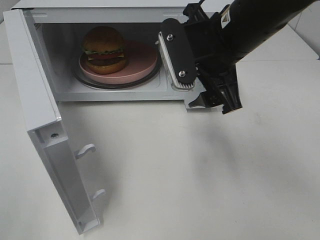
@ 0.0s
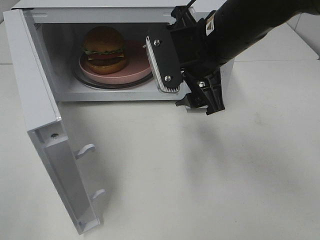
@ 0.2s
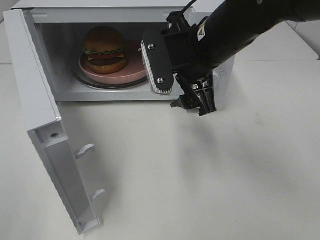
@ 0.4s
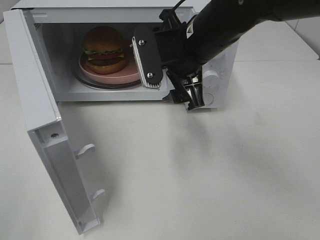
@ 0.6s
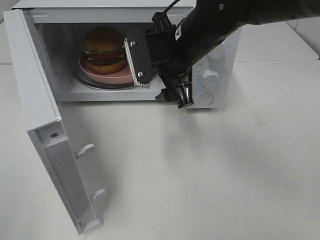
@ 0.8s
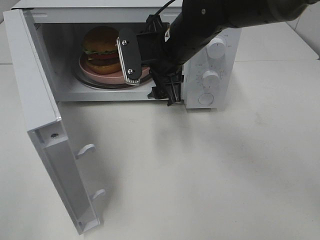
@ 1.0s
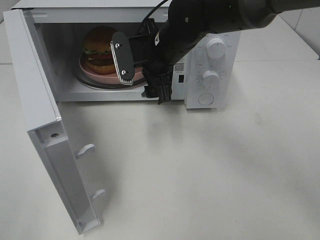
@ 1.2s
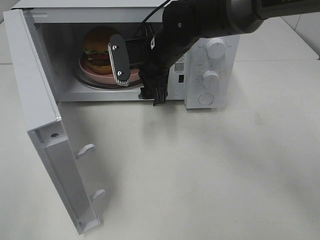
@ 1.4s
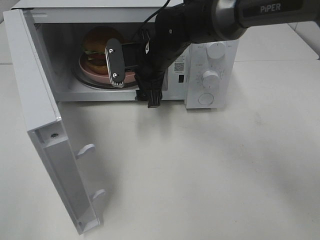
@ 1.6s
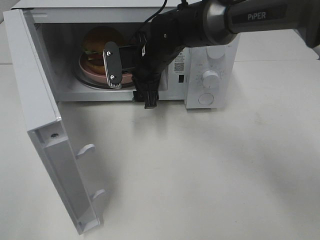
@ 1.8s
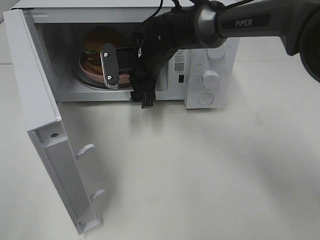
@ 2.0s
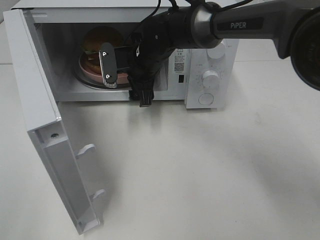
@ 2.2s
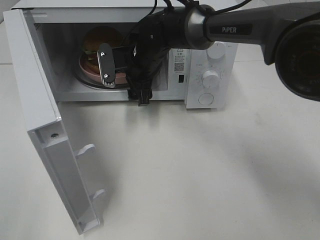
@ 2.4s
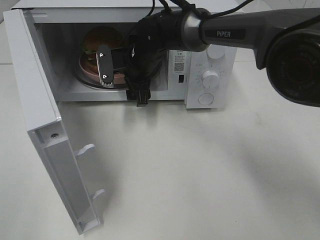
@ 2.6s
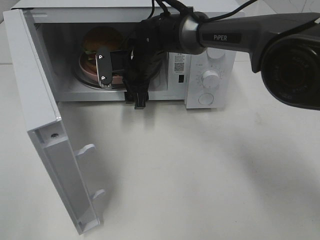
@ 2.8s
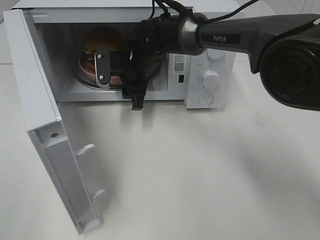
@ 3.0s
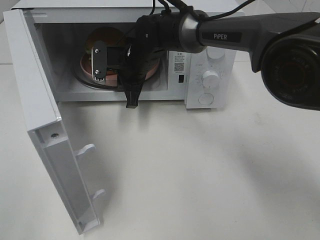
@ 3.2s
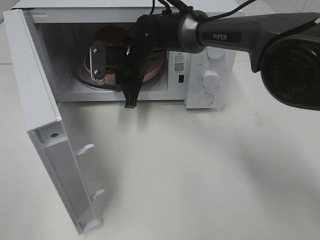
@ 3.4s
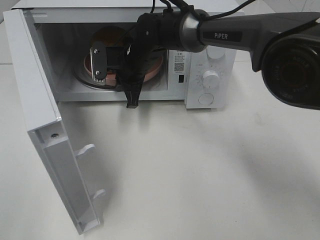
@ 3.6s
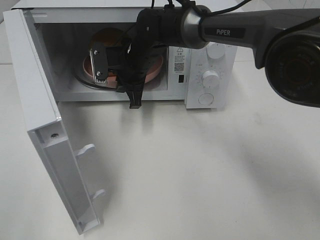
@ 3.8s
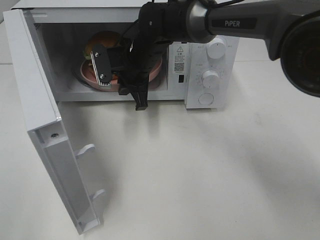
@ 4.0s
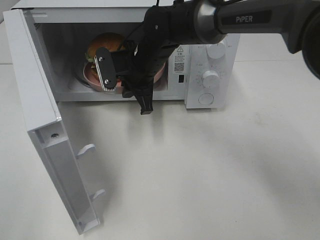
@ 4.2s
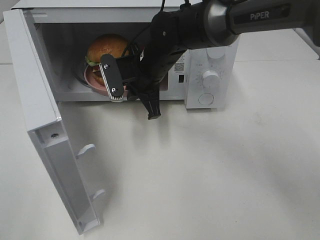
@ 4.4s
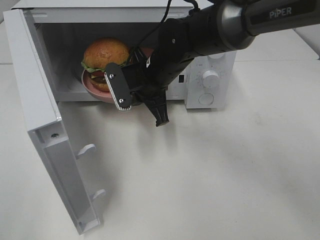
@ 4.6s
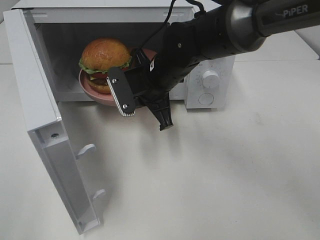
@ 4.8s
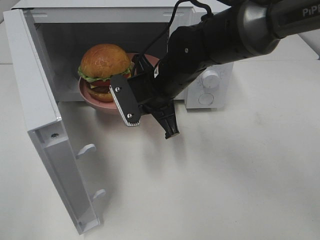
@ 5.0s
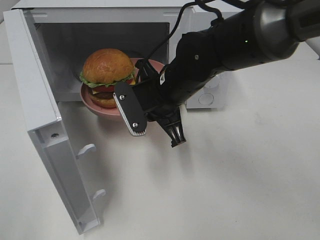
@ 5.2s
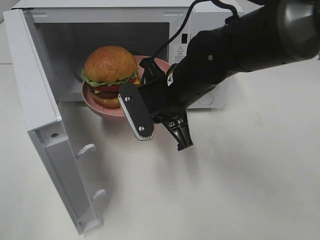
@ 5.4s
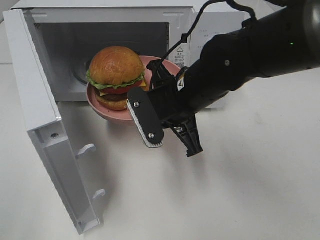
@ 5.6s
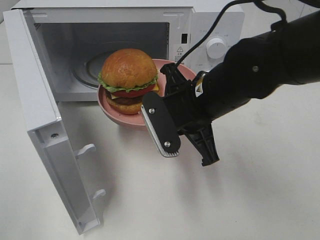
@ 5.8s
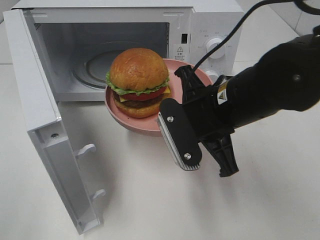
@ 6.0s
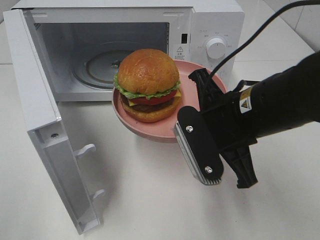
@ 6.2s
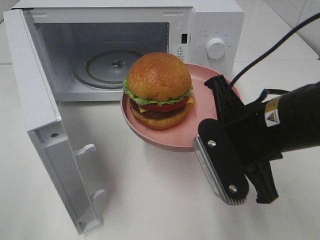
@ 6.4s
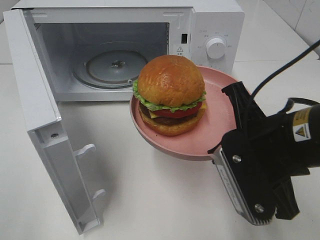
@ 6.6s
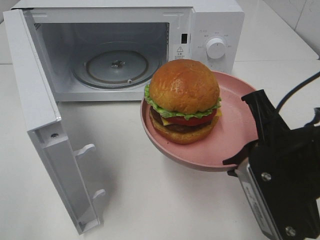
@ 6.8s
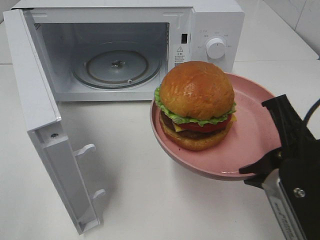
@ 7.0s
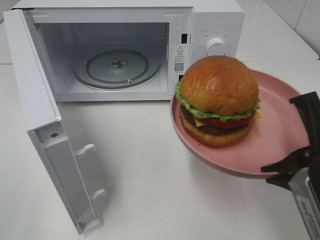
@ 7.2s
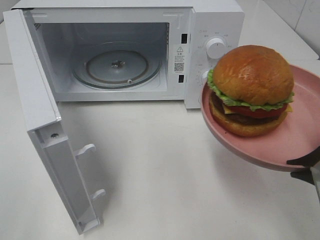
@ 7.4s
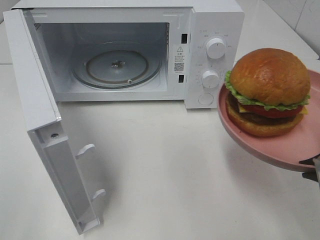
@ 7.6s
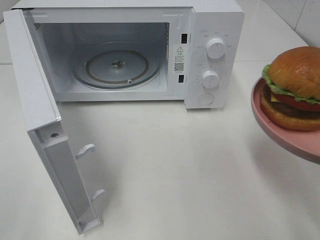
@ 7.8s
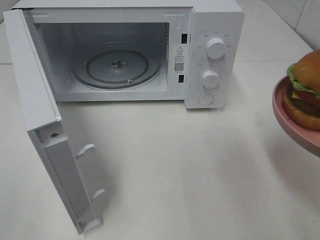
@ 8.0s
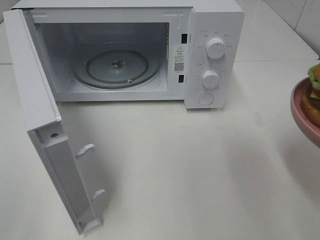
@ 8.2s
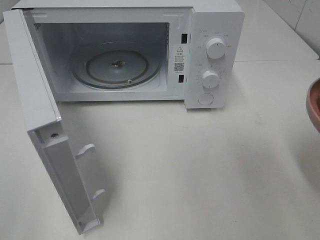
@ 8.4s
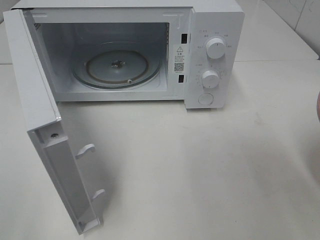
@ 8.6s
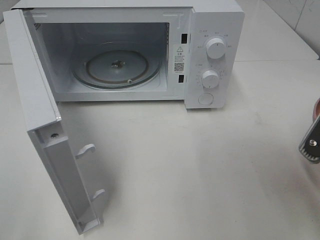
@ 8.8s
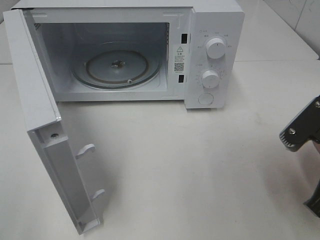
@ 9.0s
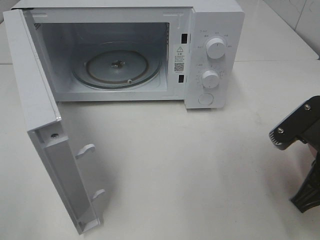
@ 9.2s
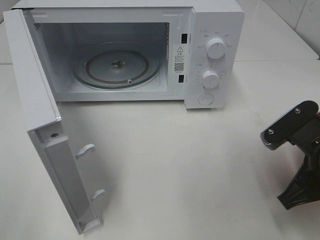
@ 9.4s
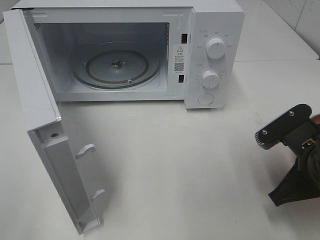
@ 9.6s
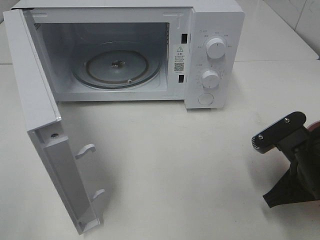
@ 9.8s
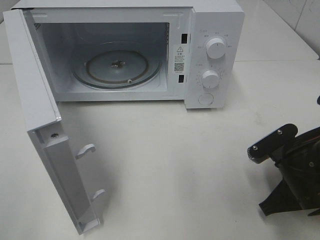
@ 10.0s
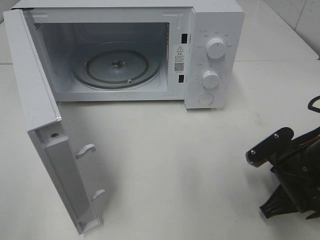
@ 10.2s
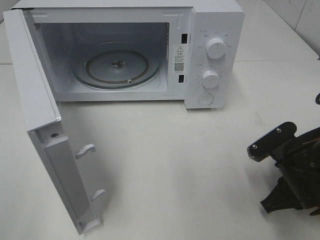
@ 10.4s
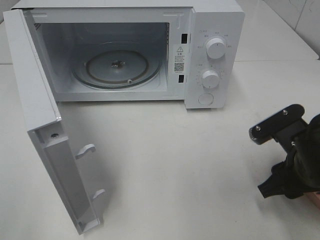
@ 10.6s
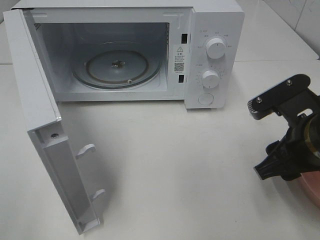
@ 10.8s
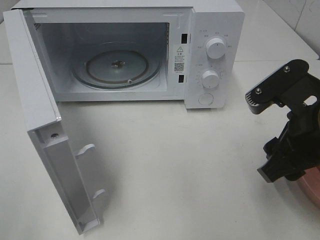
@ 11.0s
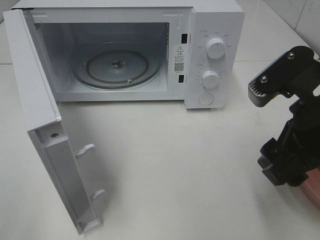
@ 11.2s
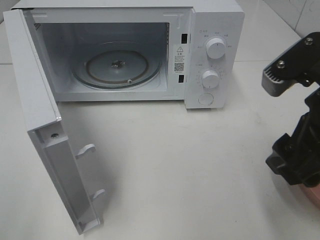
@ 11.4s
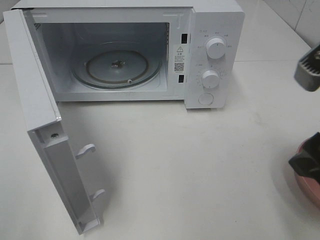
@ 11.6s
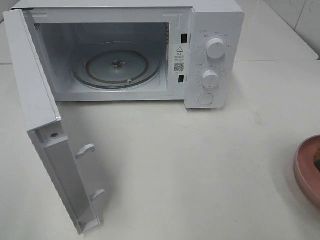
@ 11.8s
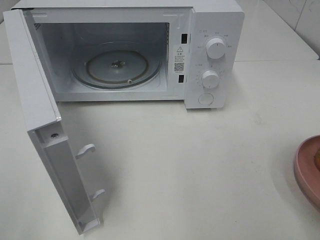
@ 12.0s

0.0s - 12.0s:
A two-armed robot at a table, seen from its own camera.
Task of the whole recording: Heat the burger.
Step, 0.0s - 3.2s: Right hand: grab the plate with the hamburger.
Step, 3.4s - 10.2s: Right hand: place the plate on the table.
0.0s - 1.6s: The right gripper heads forward, downward and to the left, covering some 15 cm.
1.6s - 3.0s: The right gripper changes place by approximately 5 cm, and closes up.
3.0s - 4.4s: The right gripper moves backward, roughly 5 cm, and closes its fingers.
4.4s - 6.0s: The right gripper moves backward and to the right, approximately 20 cm.
6.0s - 7.6s: The right gripper is displaced to the right and backward by roughly 20 cm.
7.6s - 9.0s: The right gripper changes place by about 5 cm.
9.0s - 10.4s: The right gripper heads downward, covering roughly 10 cm, and opens its fingers.
10.4s - 12.0s: The right gripper moves upward, approximately 20 cm, and opens up.

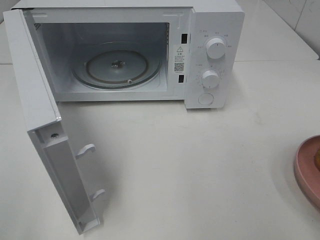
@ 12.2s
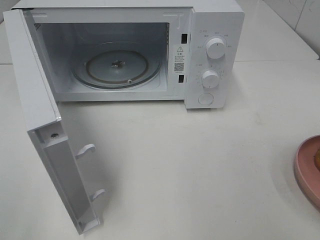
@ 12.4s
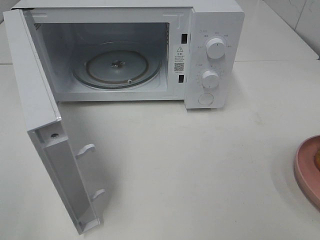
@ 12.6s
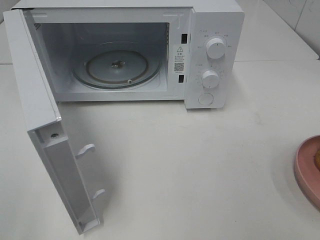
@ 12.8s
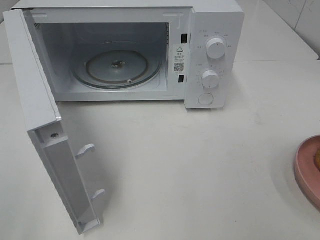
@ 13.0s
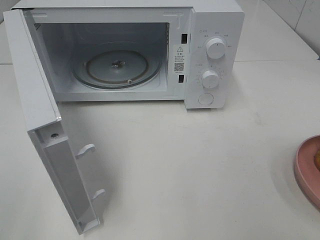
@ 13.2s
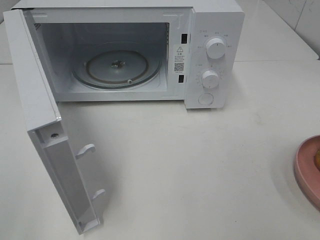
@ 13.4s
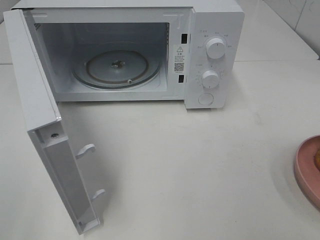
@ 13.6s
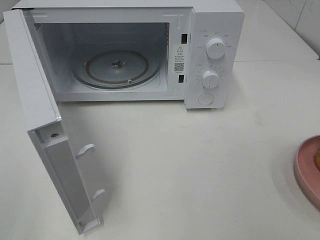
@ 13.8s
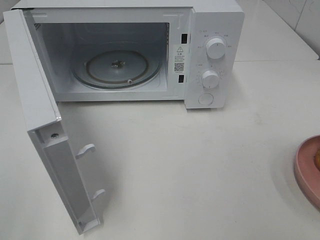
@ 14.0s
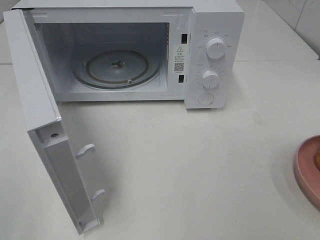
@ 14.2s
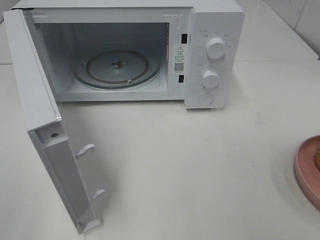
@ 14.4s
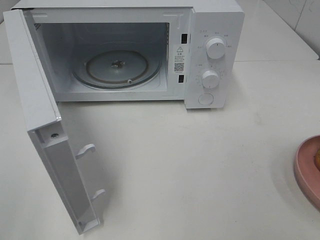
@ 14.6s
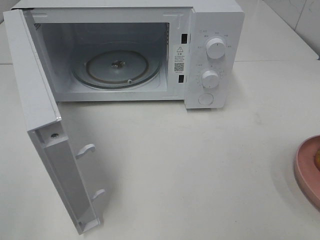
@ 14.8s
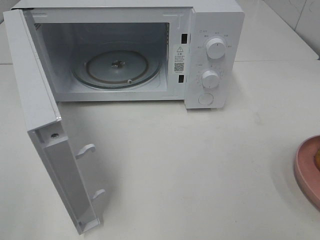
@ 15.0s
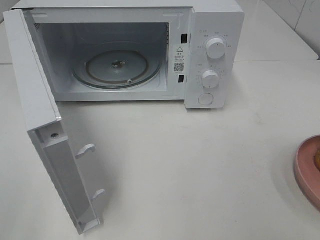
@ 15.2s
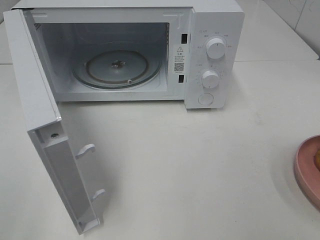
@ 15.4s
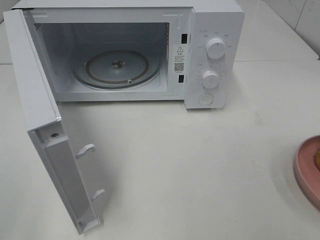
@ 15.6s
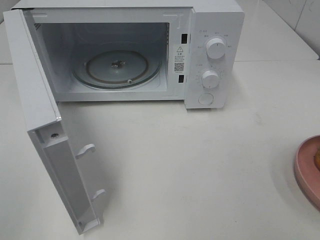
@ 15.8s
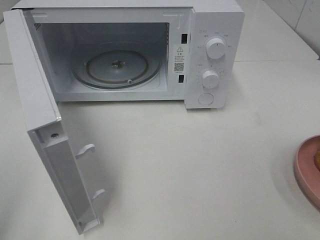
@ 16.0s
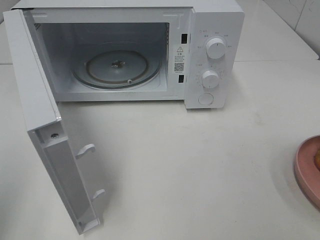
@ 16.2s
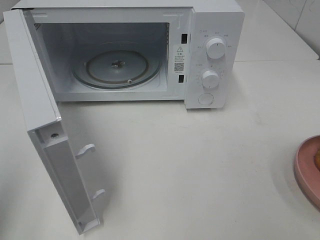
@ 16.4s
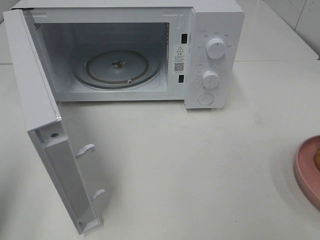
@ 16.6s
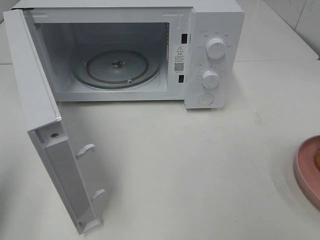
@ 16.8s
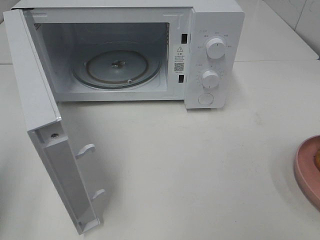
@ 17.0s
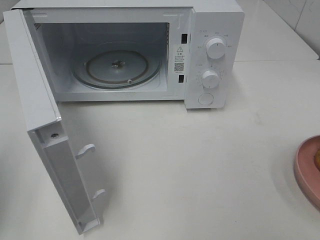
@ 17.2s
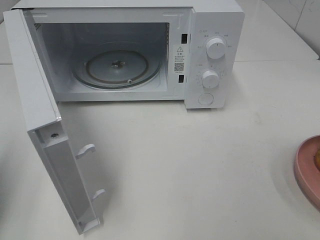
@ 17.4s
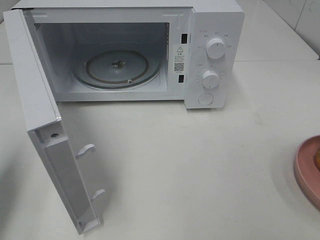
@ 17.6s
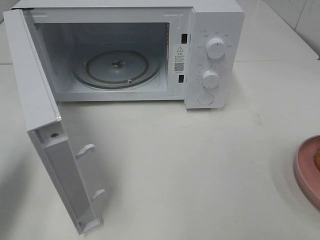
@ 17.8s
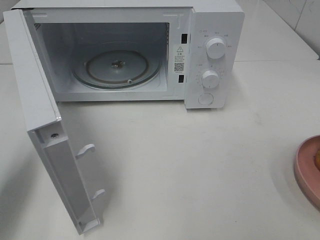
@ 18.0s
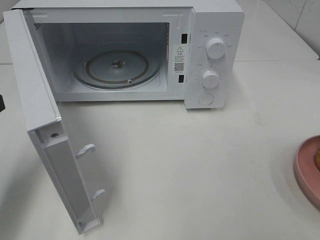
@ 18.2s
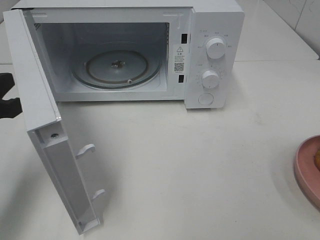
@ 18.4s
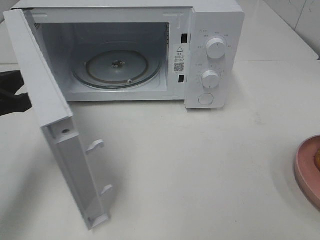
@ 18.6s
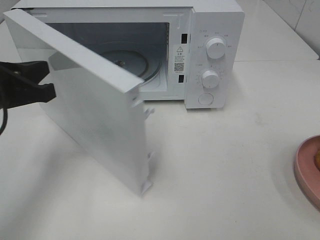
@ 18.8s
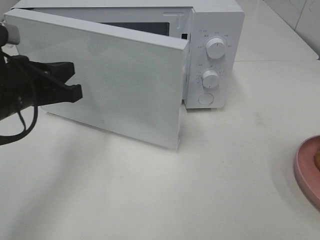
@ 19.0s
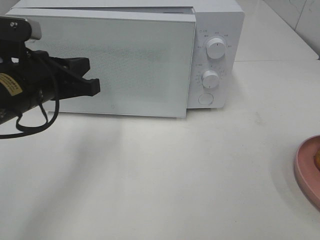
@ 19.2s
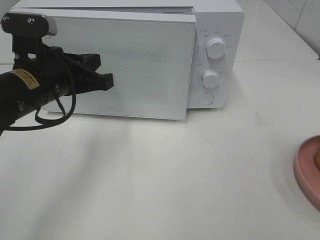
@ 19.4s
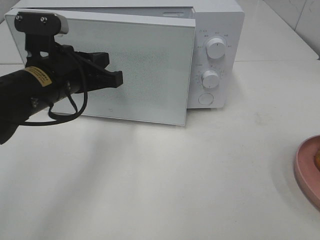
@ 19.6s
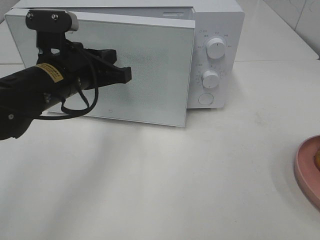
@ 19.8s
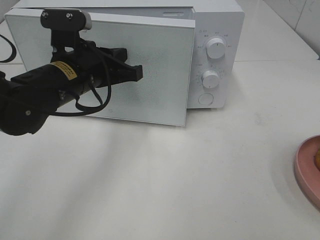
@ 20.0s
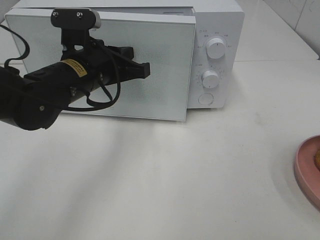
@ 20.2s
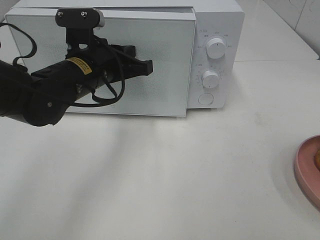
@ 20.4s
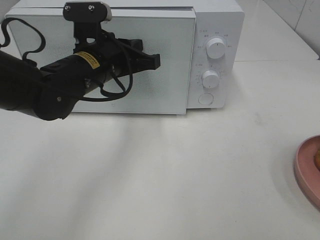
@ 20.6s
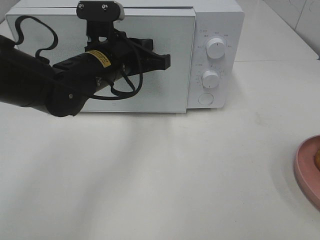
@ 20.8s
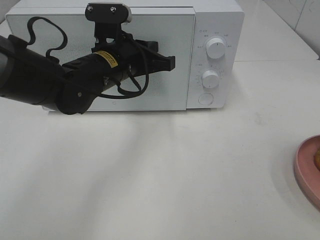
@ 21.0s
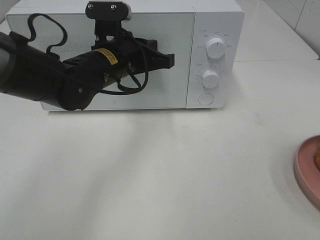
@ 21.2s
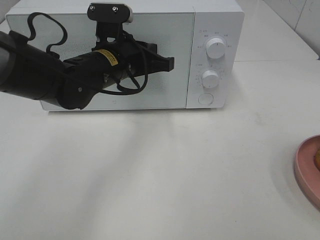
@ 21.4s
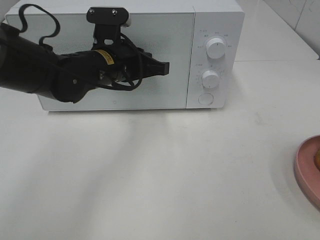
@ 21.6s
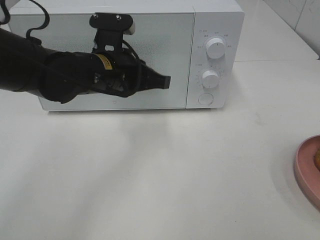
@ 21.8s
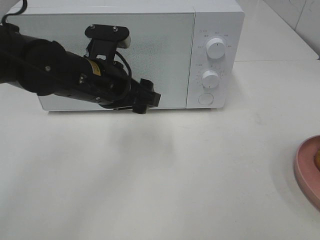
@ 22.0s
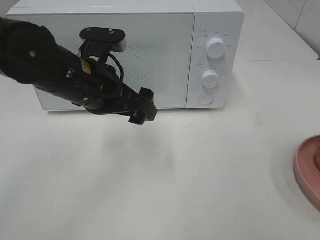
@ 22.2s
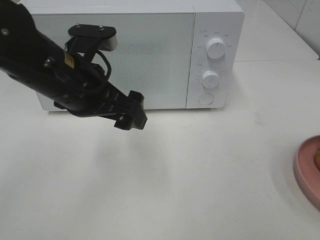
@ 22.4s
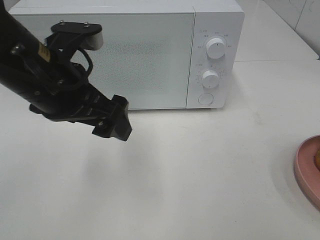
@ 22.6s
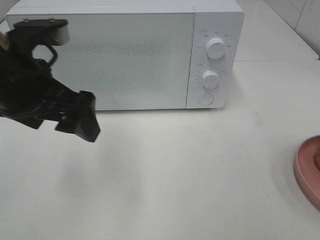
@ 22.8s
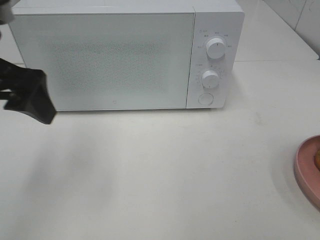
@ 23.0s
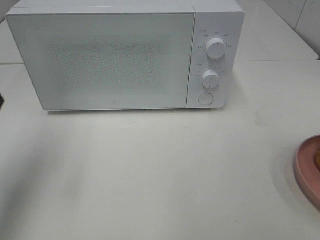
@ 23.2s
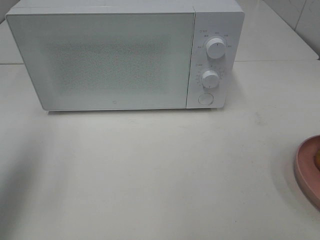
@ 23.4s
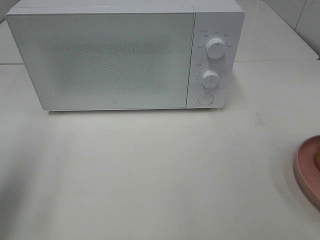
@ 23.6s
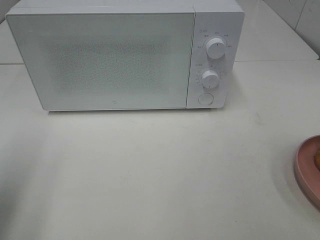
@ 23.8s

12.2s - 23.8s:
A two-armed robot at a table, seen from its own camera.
Task of the whole recording: Heat the burger.
Step, 12.2s - 21.6s: Left hand: close the microwave door.
13.6s - 15.0s: Both grippers stay put.
15.0s - 16.6s: The left gripper heads forward, covering roughly 10 cm, and closes its fingers.
16.6s - 18.0s: The left gripper shifts some 10 cm forward and downward.
18.0s - 19.4s: The left gripper travels to the right and forward by roughly 15 cm.
19.4s - 21.0s: The left gripper goes roughly 10 cm to the right and forward.
21.0s - 22.4s: The left gripper shifts roughly 10 cm backward, and opens its fingers.
22.4s - 23.8s: The left gripper shifts some 25 cm to the left and backward.
